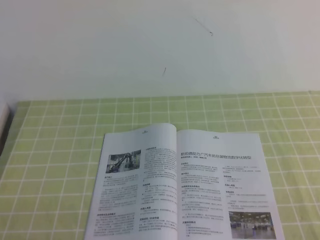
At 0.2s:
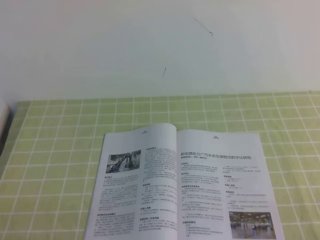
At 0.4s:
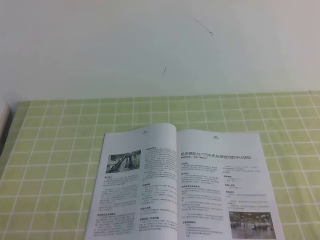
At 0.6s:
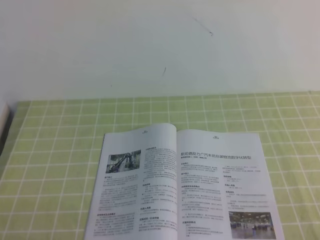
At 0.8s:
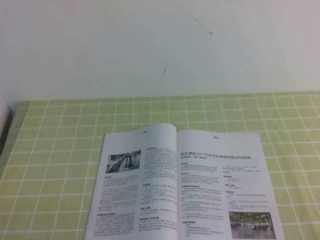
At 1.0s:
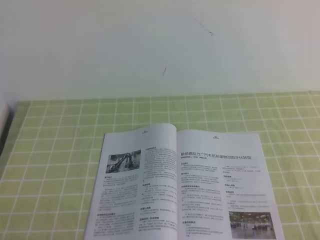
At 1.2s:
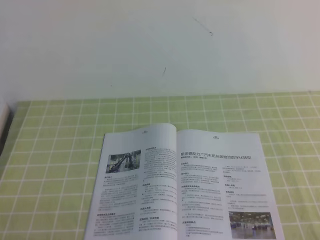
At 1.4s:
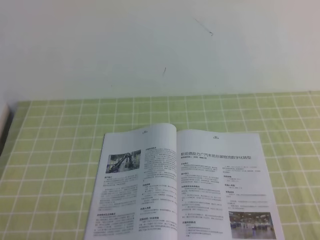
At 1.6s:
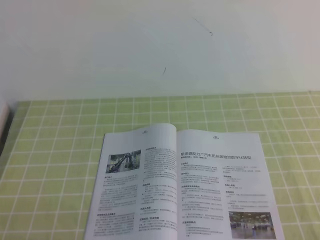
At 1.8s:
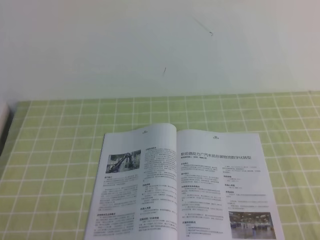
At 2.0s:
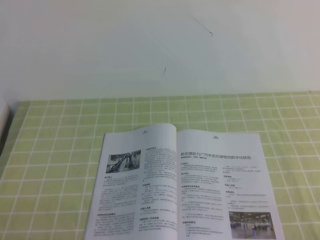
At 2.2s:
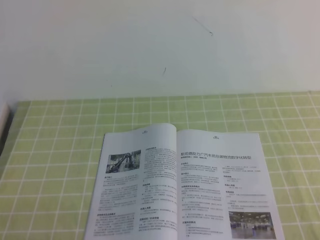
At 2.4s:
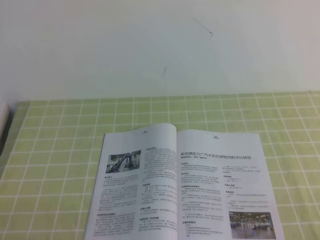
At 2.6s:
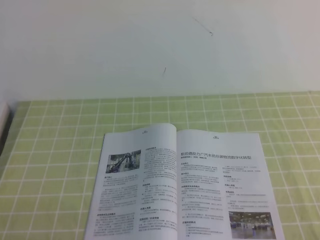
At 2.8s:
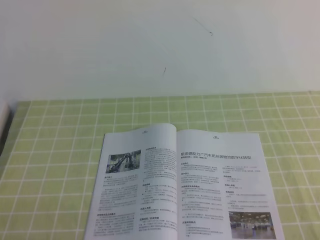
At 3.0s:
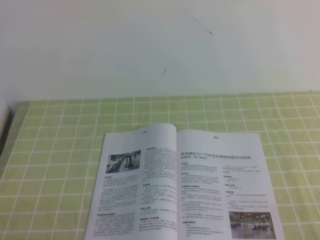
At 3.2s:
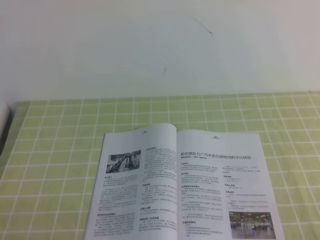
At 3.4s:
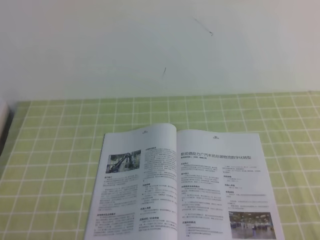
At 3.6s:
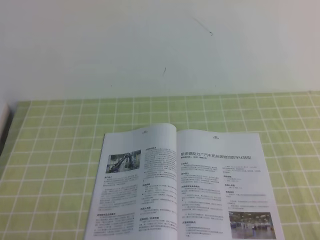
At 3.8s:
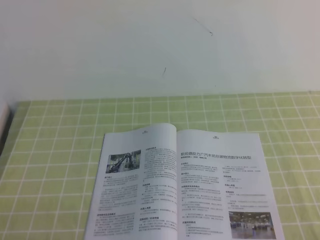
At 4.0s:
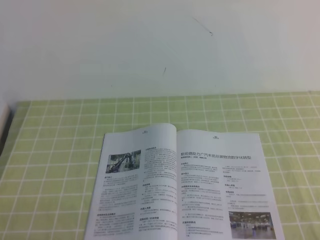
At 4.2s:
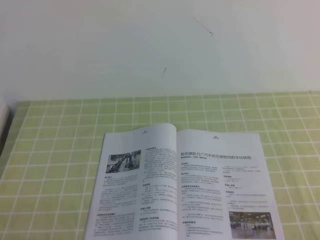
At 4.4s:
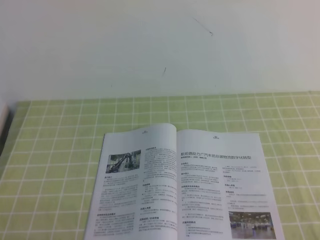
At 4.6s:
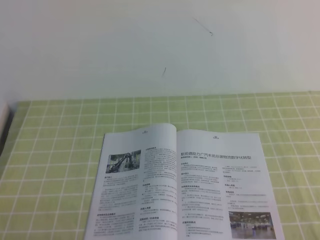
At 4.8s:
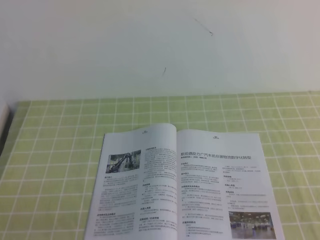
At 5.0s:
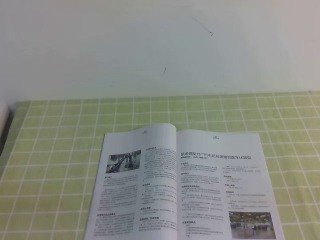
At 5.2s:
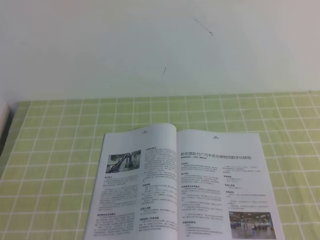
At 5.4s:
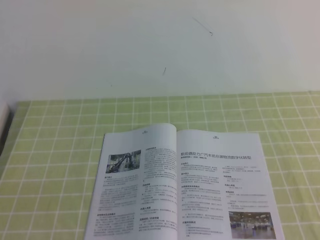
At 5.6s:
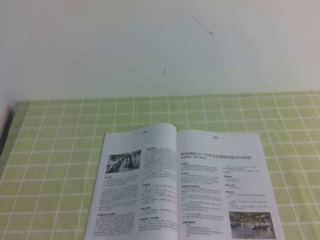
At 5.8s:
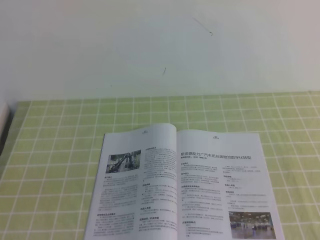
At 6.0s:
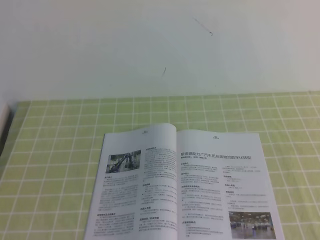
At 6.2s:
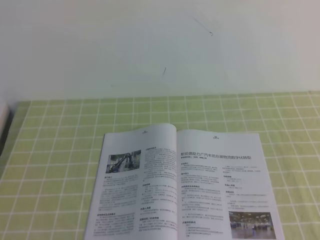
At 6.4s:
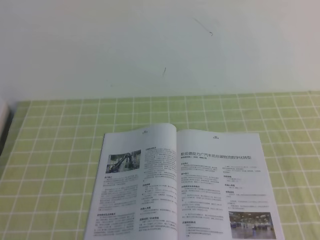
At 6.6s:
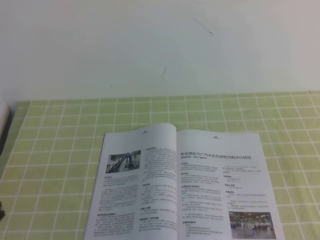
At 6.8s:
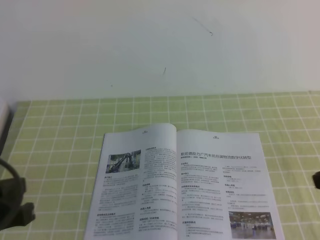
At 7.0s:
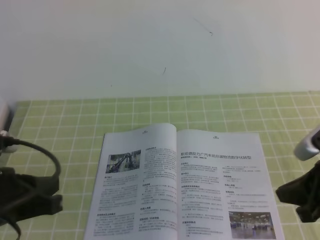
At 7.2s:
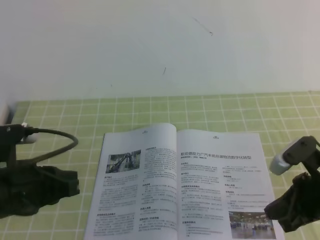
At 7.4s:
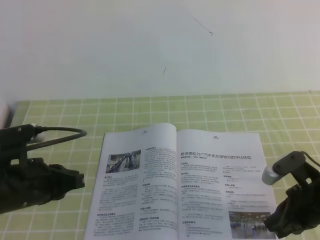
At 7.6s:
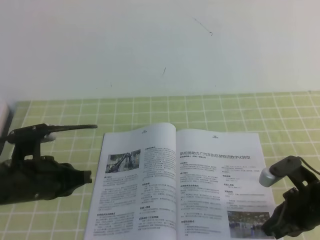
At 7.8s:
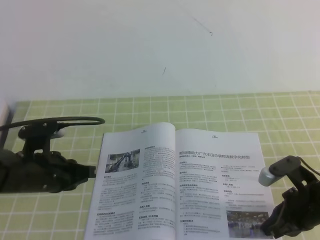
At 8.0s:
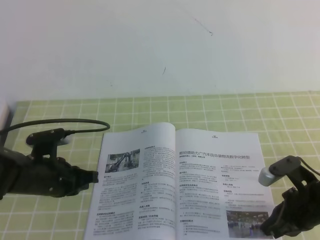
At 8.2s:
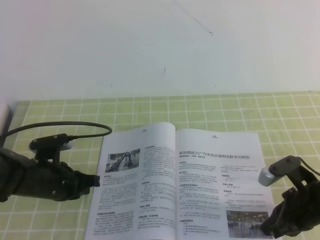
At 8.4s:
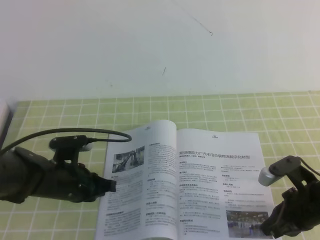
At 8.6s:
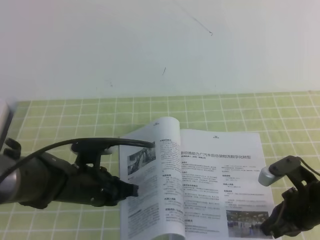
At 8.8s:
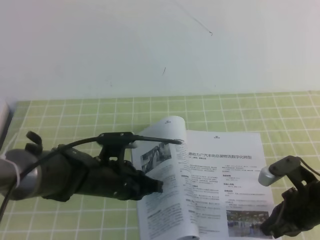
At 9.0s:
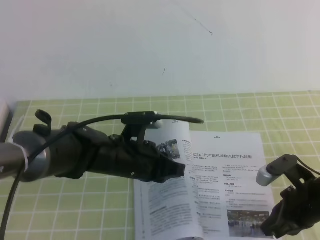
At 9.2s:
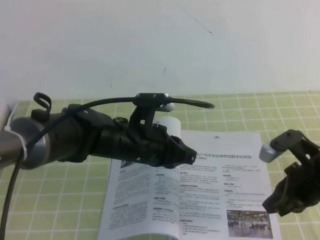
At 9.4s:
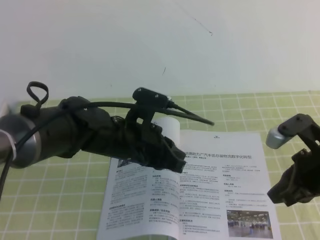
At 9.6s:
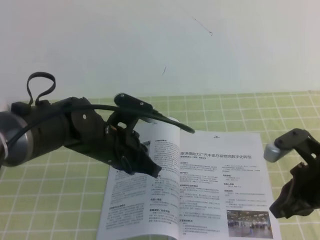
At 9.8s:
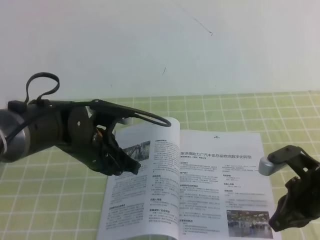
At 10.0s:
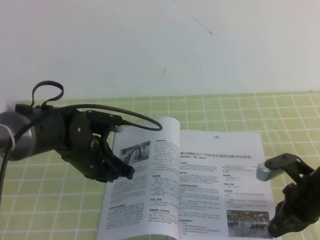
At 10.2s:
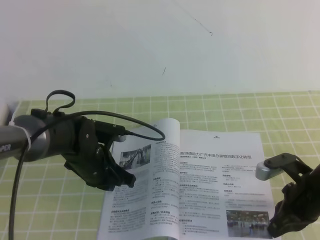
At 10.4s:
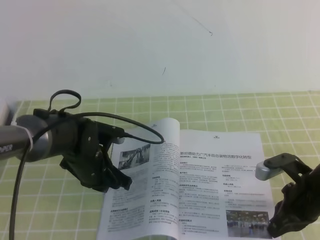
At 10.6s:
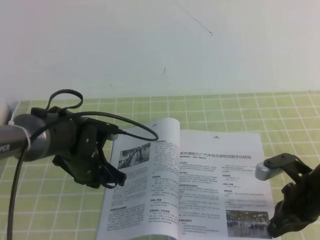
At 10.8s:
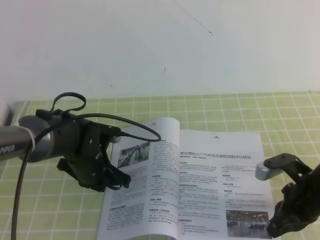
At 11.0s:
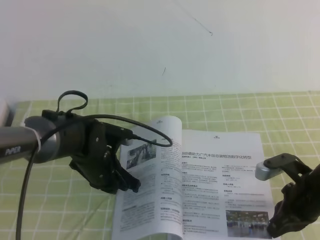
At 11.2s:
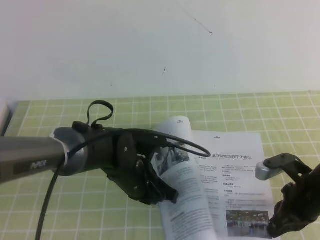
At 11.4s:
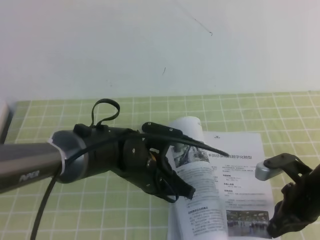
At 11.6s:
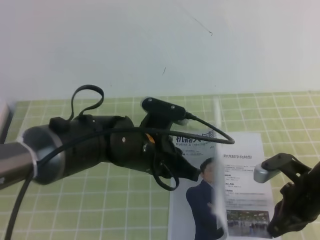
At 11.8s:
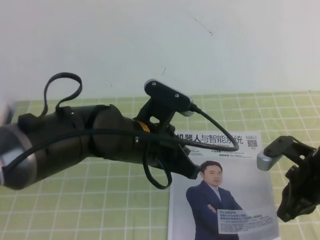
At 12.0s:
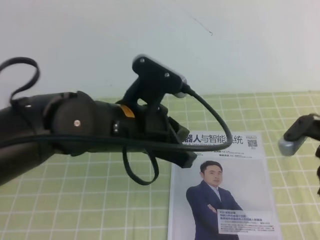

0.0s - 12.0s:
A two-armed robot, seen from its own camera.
Task of the whole recording: on the green tablecloth, hold the book with one hand and close it with the other.
0.0s - 4.4s: The two grippers keep their place.
6.0s - 7.6s: The left gripper moves forward and downward, about 25 cm; the right gripper is displaced downward and forward by about 30 cm.
7.6s - 9.0s: The left gripper travels to the right by approximately 15 cm.
9.0s - 10.4s: The left gripper moves to the left, about 5 cm.
10.4s - 12.0s: The right gripper moves upward, some 10 cm; the left gripper moves upward, backward and to the right, about 20 cm.

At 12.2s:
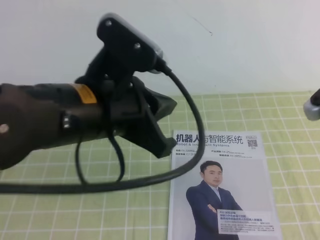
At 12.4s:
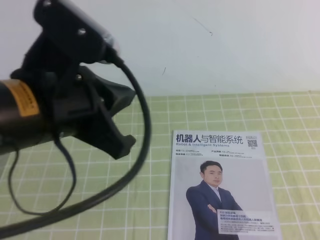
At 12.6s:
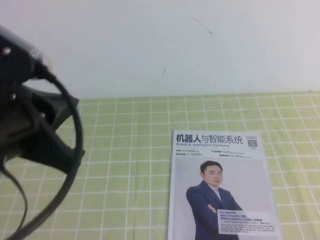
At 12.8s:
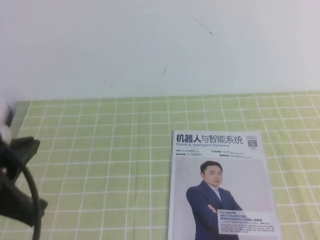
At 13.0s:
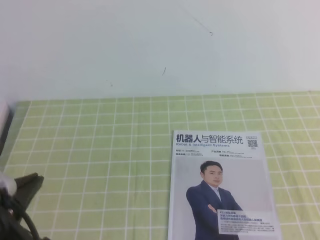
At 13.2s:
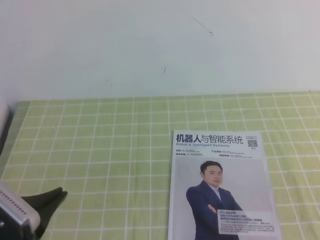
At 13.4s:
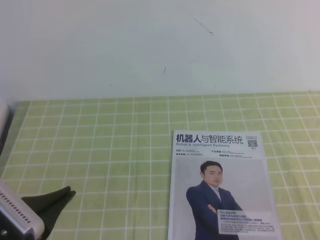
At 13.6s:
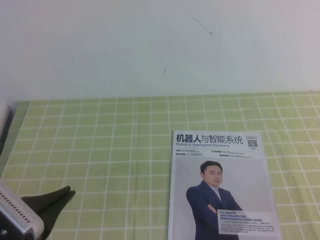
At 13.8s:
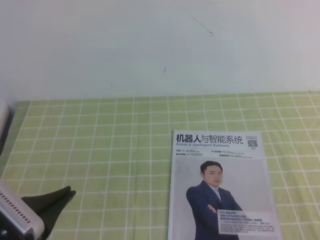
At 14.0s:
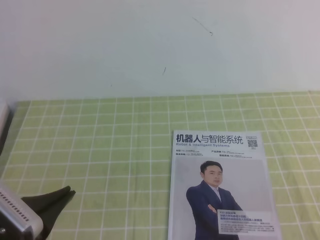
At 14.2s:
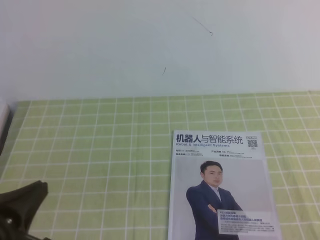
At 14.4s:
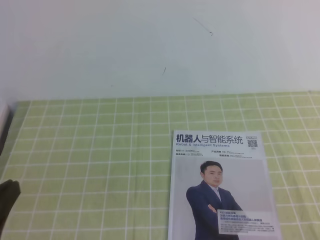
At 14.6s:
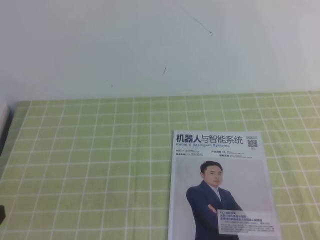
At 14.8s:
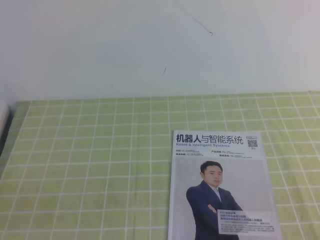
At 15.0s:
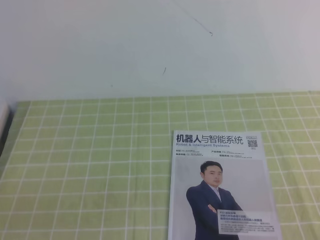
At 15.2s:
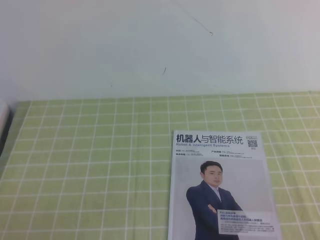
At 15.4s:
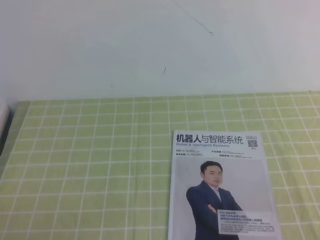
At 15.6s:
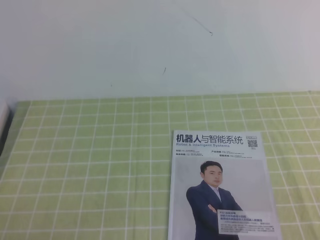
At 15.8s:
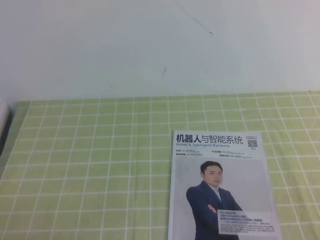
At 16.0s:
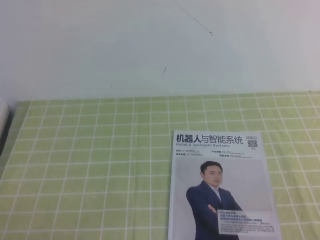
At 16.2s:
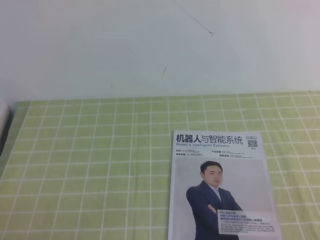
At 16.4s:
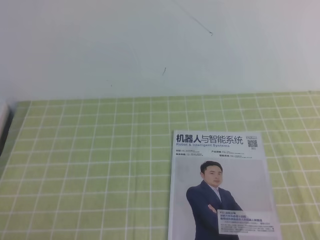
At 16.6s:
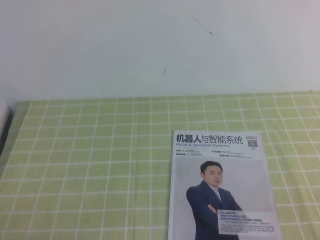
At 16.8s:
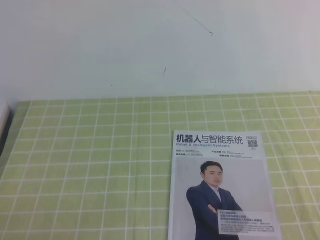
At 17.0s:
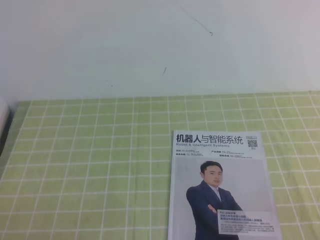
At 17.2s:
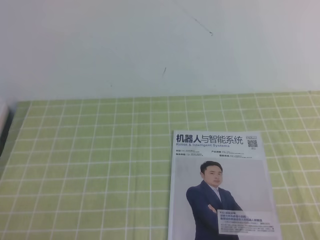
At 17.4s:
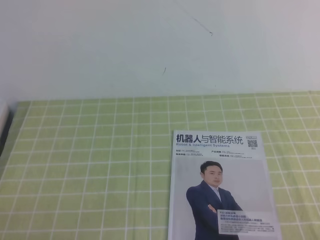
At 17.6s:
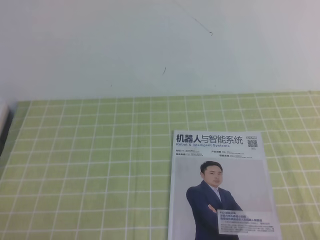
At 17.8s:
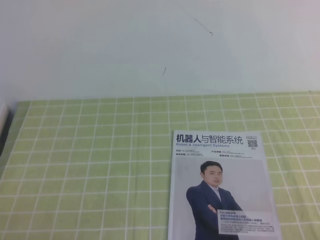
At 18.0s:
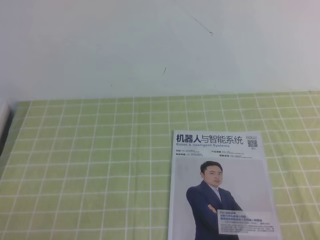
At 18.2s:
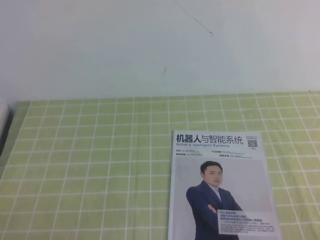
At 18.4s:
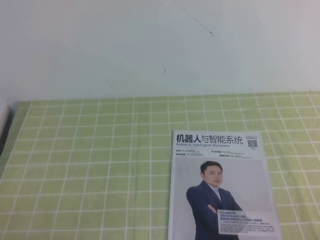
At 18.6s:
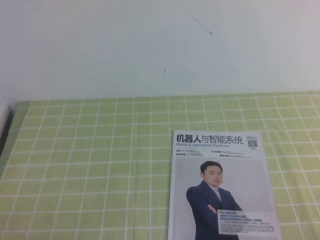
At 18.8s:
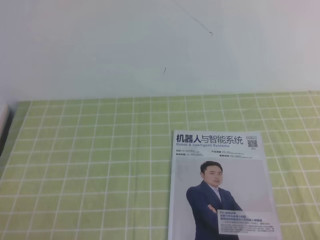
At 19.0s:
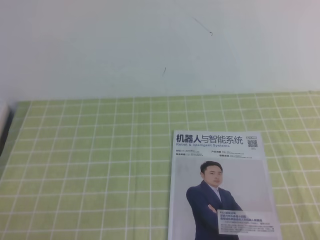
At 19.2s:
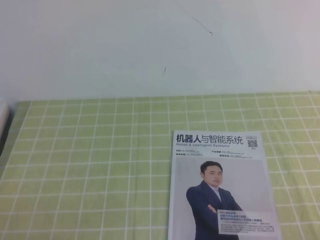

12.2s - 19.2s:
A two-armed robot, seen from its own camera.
Task of the whole recording: on the green tablecloth, hold the book with one hand and close it with the other.
Step, 12.2s - 19.2s: Close the open book.
12.2s - 13.6s: The right gripper travels backward by approximately 20 cm. The left gripper moves to the left, backward and downward, about 20 cm.
13.6s - 15.0s: The left gripper travels to the left and backward by roughly 10 cm.
17.8s - 19.2s: Neither gripper changes place.
